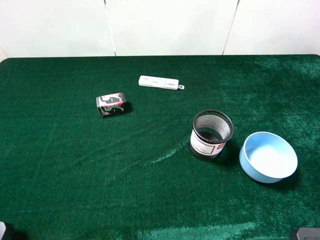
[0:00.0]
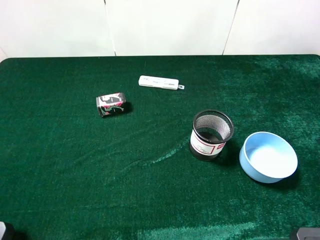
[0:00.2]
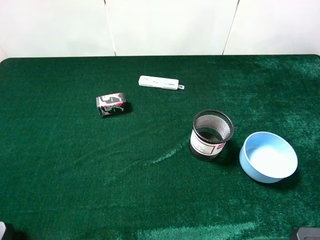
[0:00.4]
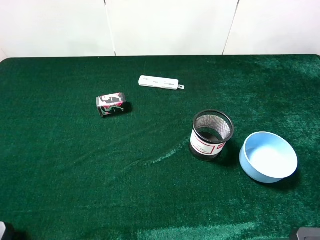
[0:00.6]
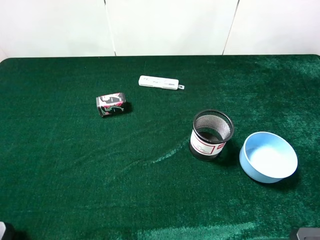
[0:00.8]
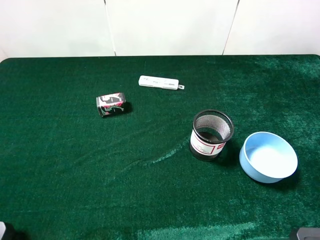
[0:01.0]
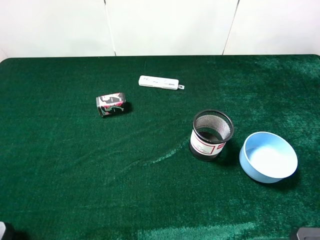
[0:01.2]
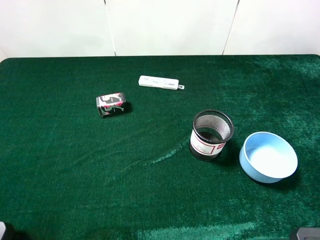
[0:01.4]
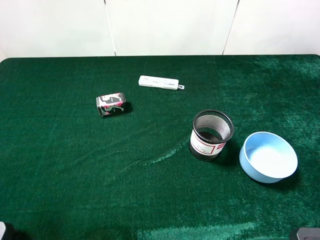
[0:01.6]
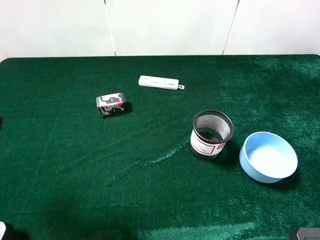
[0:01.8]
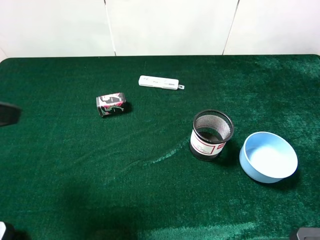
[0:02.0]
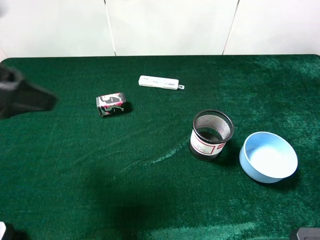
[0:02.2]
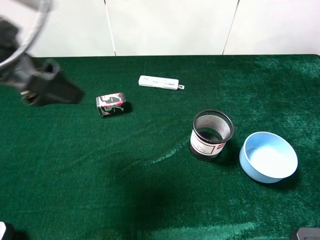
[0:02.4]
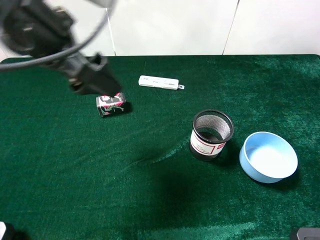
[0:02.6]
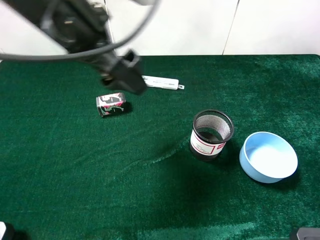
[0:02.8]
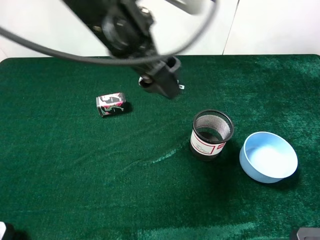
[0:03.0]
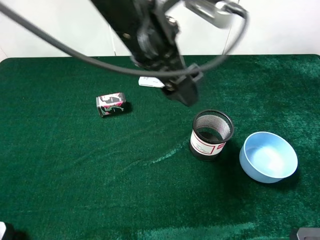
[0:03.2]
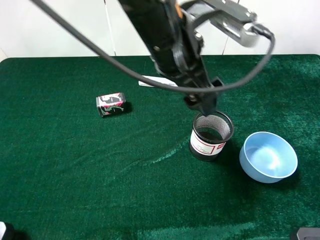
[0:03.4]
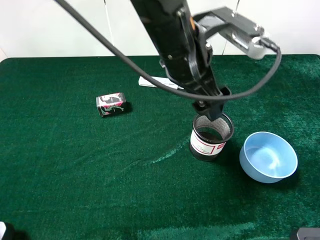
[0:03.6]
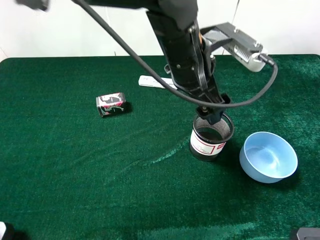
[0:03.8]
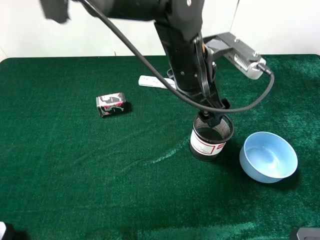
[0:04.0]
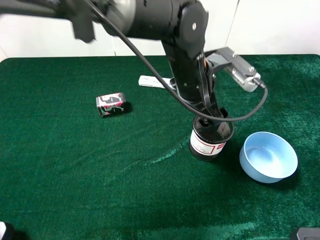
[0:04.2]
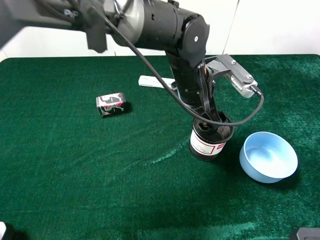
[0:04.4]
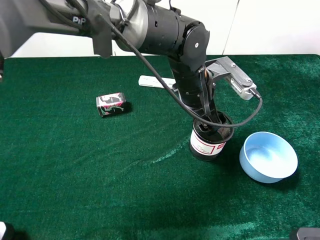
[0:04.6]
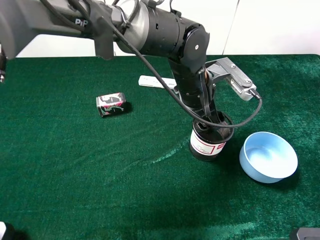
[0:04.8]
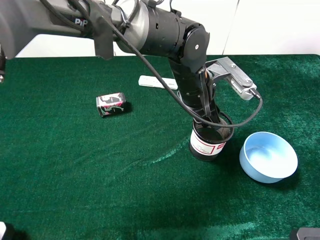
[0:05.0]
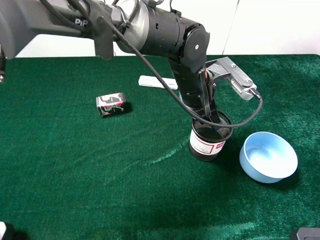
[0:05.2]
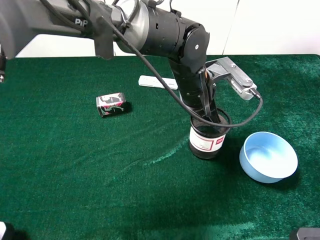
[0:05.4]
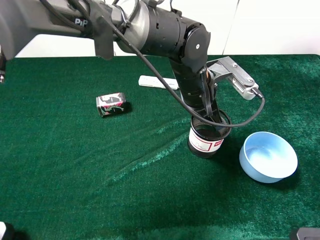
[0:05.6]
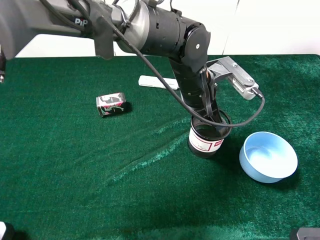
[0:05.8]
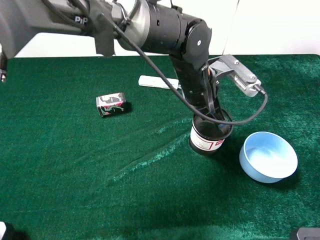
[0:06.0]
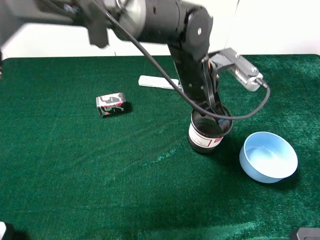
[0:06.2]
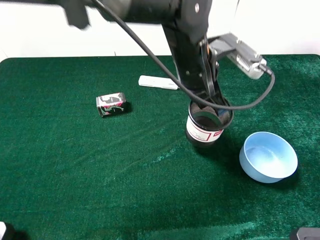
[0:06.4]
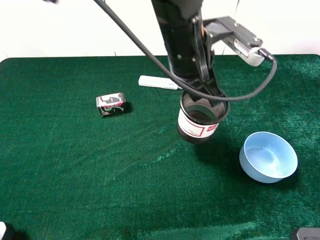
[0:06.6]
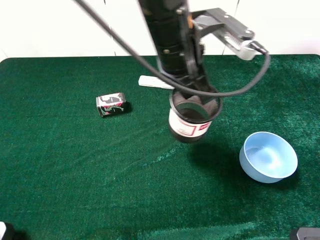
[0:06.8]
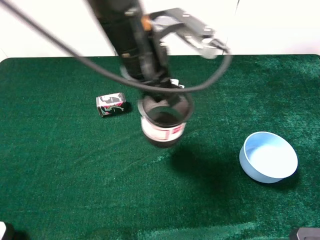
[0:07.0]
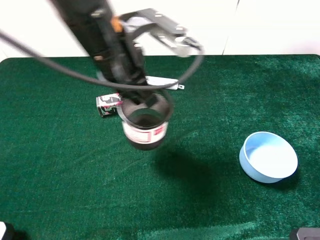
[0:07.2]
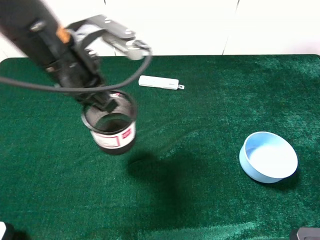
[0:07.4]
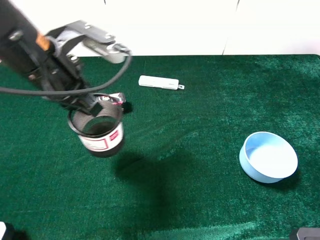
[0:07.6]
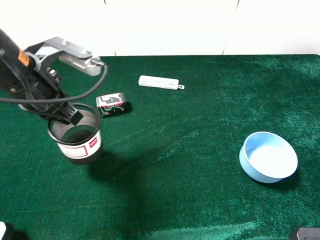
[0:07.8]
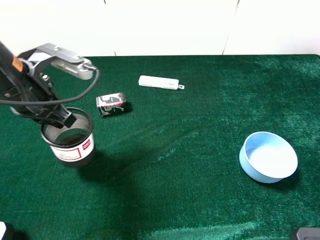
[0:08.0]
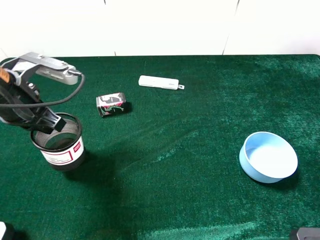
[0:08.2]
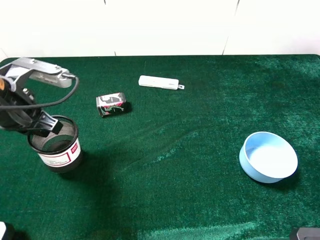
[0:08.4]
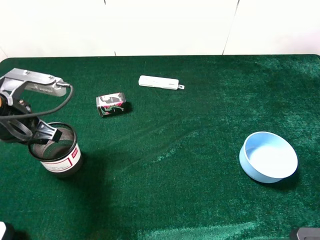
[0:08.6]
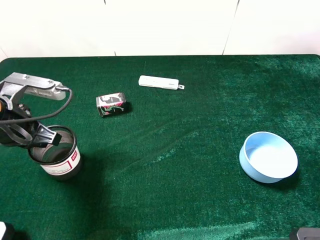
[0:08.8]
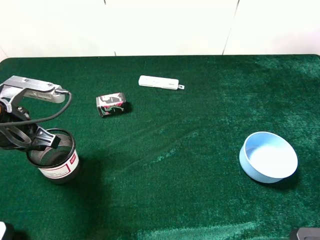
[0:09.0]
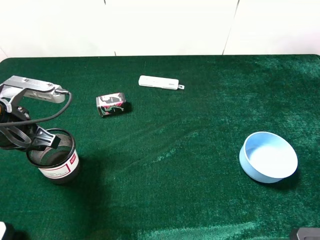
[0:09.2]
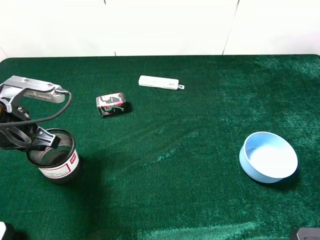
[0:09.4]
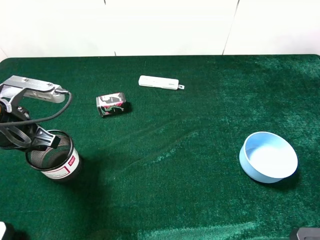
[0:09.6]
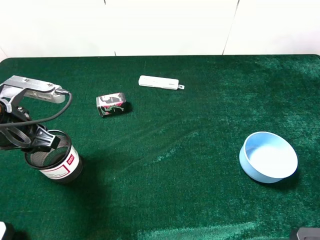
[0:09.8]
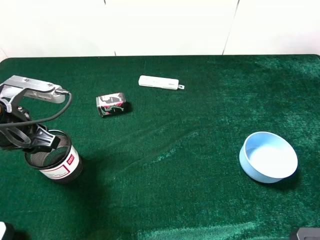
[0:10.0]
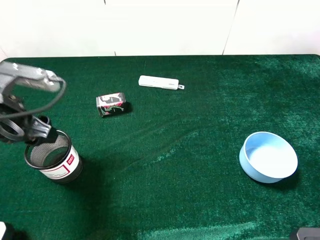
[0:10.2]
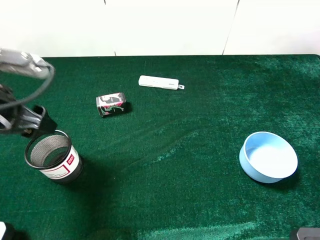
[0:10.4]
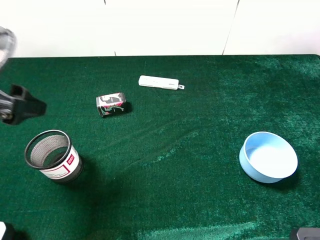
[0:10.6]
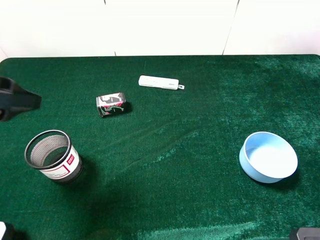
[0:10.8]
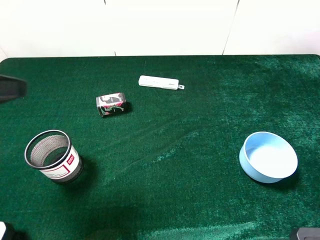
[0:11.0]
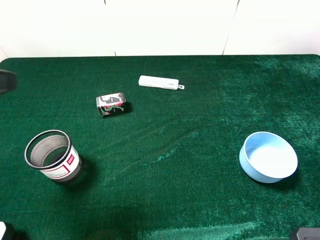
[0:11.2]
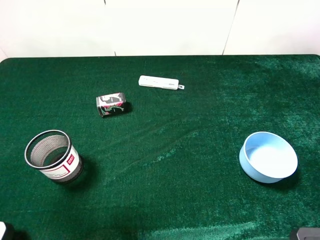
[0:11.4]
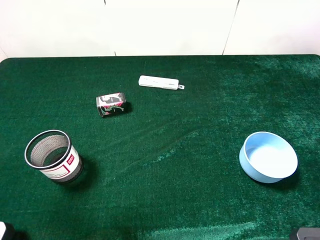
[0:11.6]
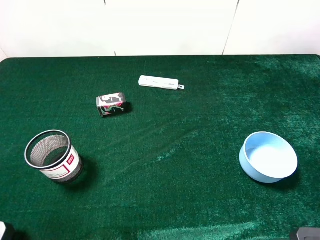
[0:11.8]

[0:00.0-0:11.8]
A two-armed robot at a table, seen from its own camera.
Task of the whole recording: the gripper move the object.
Step, 0:00.0 to 0:05.4: Grasp the pen container with the left gripper.
Step, 0:05.6 to 0:09.6: Place the pen container on the table with the left gripper.
0:01.4 to 0:03.0: The left gripper shifts approximately 30 cm to the right and forward.
0:03.0 to 0:04.4: The left gripper travels downward and to the right by roughly 20 cm.
0:04.4 to 0:06.0: The left gripper closes up.
0:06.0 to 0:07.4: The left gripper moves to the left and upward, about 25 cm.
0:07.4 to 0:08.8: The left gripper is displaced to the left and downward by some 15 cm.
0:08.8 to 0:10.4: The left gripper travels upward by some 5 cm, and opens up.
0:10.4 to 0:11.8: The left gripper moves backward and upward, roughly 15 cm.

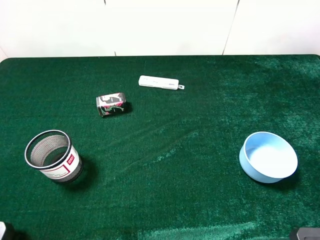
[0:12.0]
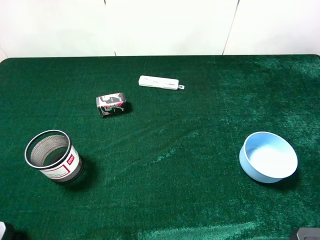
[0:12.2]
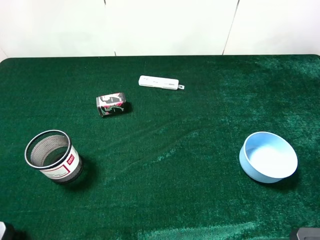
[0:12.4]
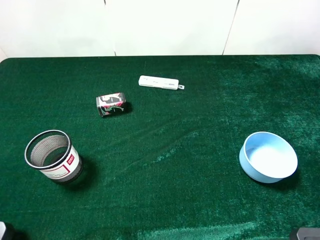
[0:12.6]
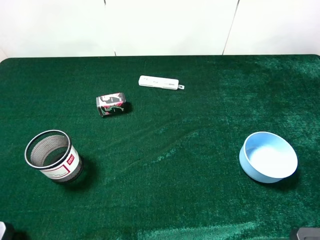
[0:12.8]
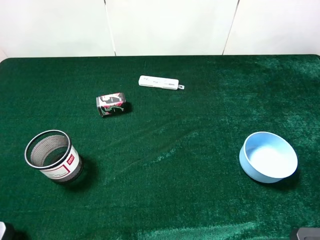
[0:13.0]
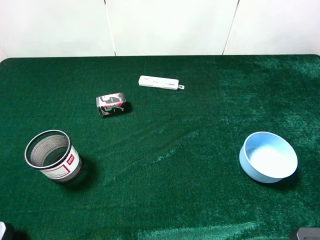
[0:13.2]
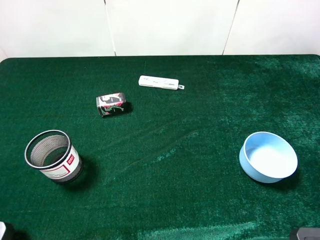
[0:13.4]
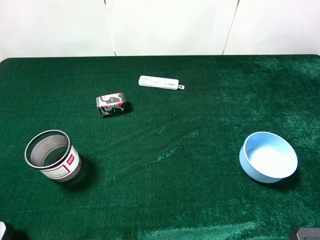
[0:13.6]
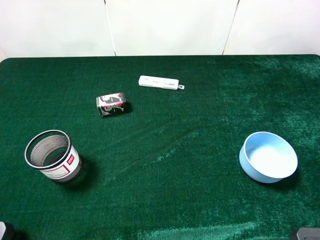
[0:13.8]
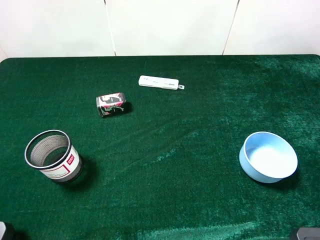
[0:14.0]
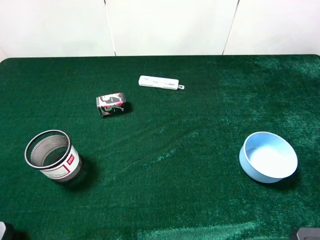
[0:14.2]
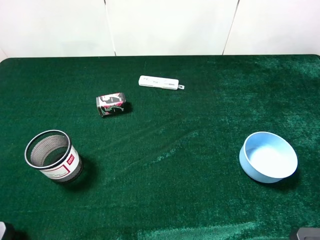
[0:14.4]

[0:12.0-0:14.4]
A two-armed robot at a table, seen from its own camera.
Task of the whole recording: the gripper move the object.
0:13.2 to 0:14.4: Both grippers stay put.

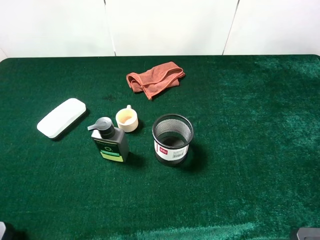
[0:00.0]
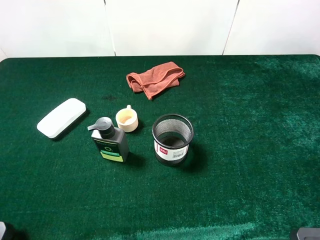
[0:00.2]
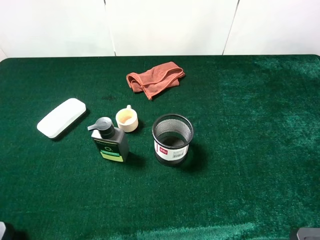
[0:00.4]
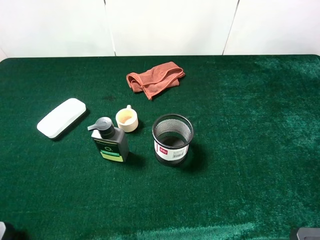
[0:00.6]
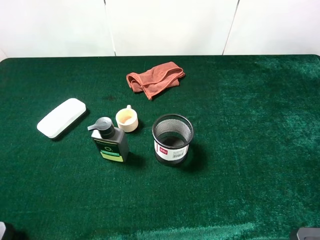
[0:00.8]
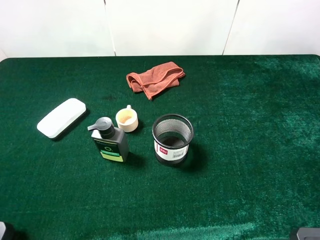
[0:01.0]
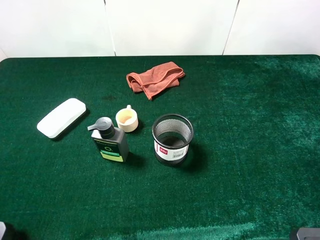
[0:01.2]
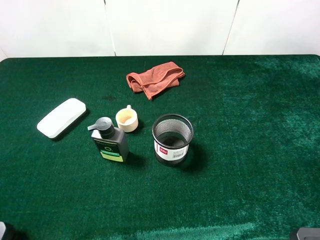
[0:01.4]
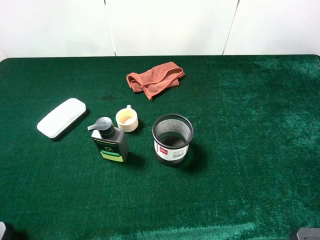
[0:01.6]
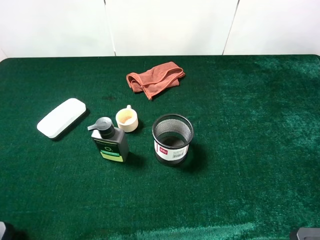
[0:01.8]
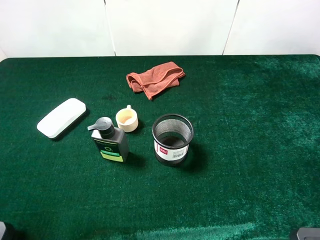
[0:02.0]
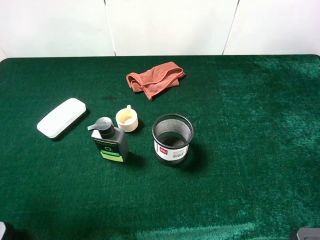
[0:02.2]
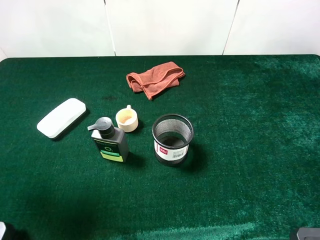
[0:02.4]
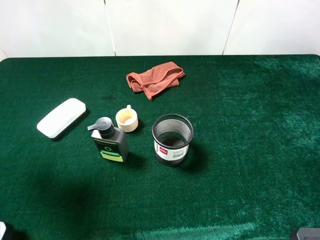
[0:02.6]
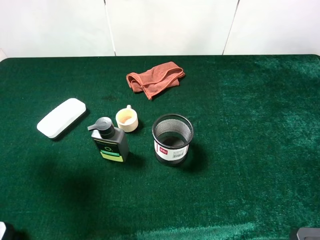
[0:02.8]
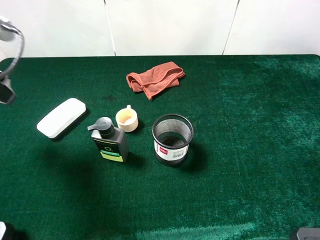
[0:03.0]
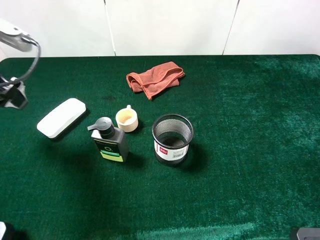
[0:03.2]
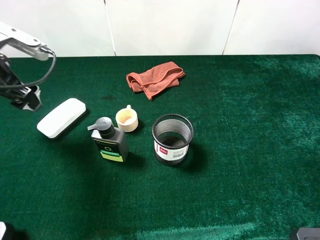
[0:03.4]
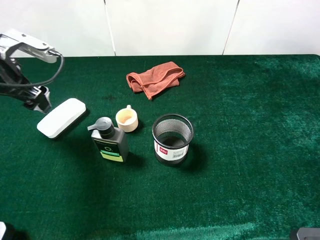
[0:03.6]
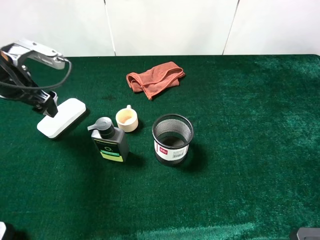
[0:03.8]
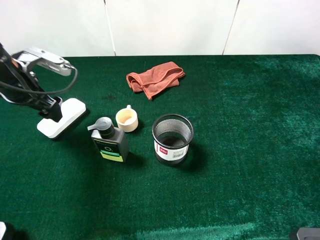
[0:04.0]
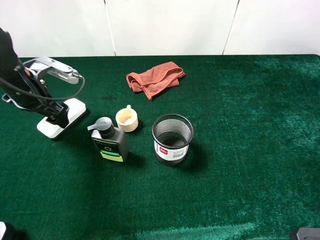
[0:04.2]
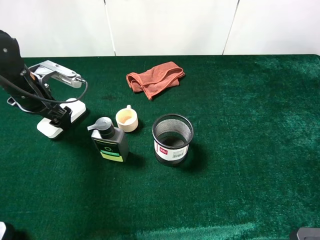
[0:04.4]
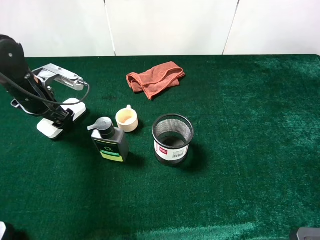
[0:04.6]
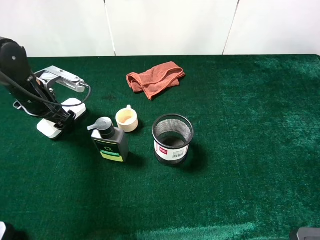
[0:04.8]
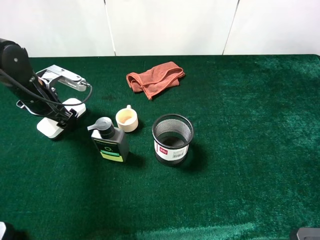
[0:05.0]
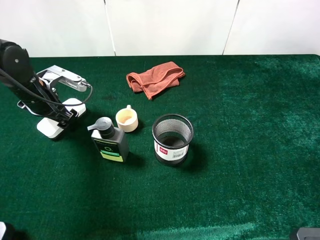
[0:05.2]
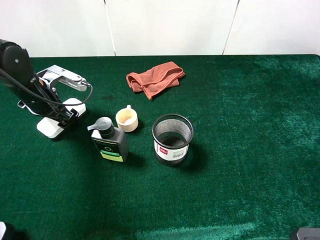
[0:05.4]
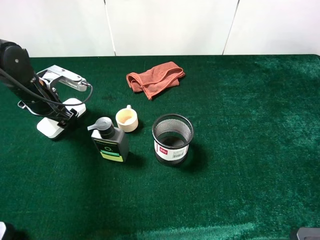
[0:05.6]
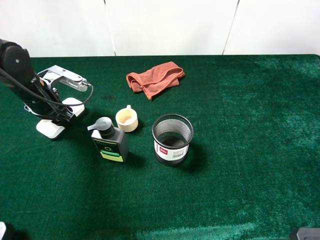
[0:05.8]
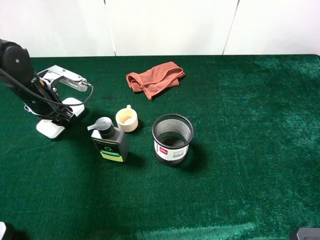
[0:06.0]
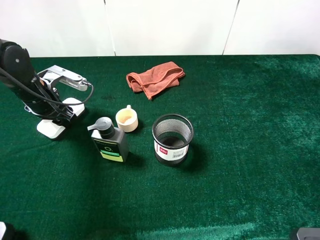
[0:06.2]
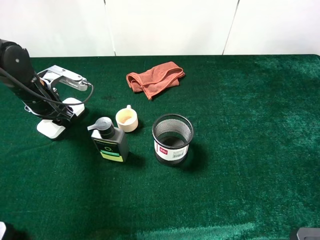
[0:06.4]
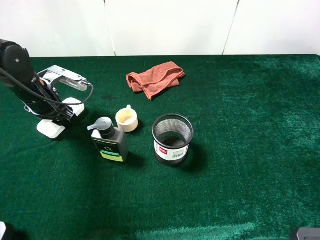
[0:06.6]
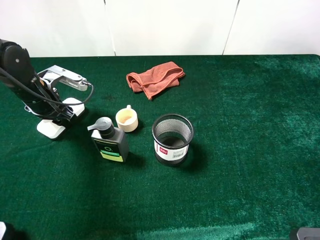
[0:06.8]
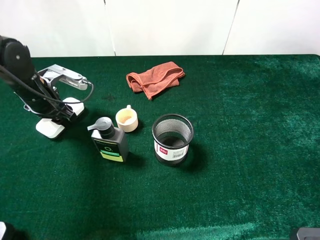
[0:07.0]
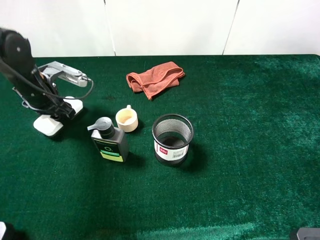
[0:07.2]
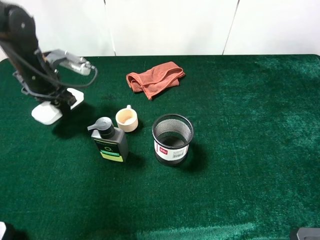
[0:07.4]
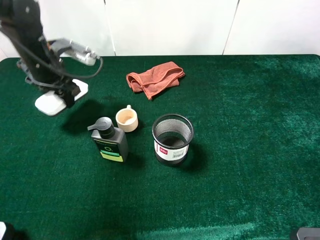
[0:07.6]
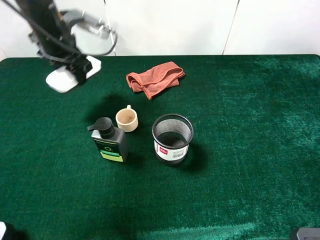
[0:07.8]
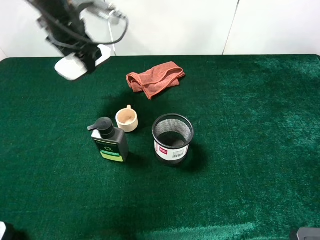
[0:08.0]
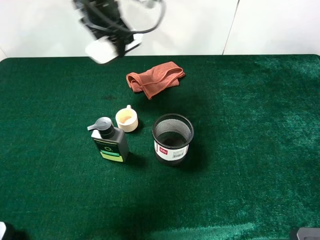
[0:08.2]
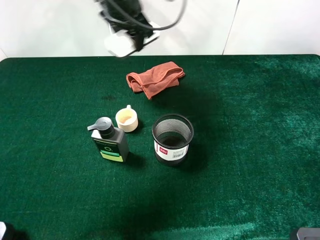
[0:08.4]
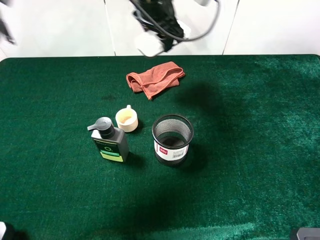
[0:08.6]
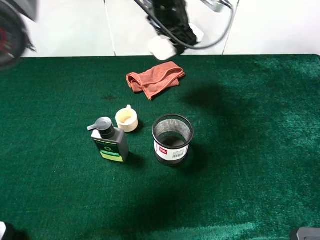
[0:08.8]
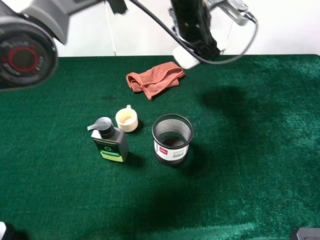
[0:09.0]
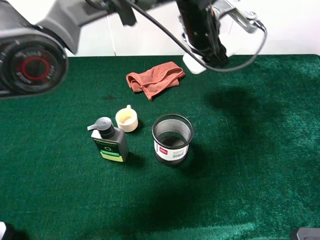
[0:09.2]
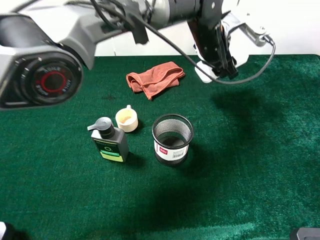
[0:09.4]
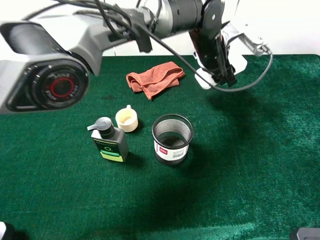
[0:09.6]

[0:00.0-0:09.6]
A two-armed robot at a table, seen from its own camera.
Task of the whole recording: the gripper move the object.
Step, 0:00.0 to 0:06.8: Grasp the white blackboard earser with the left gripper.
0:00.0 to 0:01.6: The two grippers keep their place.
0:01.6 to 0:03.2: The left gripper shifts roughly 25 cm forward.
0:03.2 to 0:04.8: The left gripper travels downward and forward by about 15 cm.
0:04.8 to 0:06.4: The left gripper closes up.
0:06.4 to 0:08.0: The left gripper is displaced upward, to the right and forward by roughly 20 cm.
0:08.0 to 0:09.6: The left gripper is displaced to the right by roughly 25 cm.
